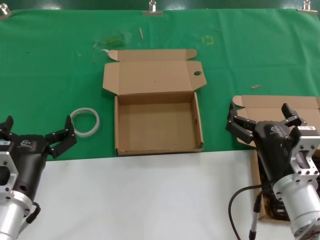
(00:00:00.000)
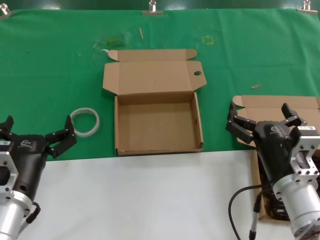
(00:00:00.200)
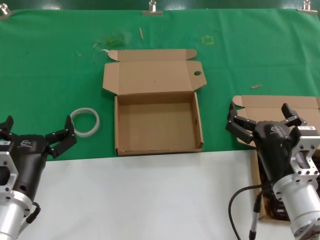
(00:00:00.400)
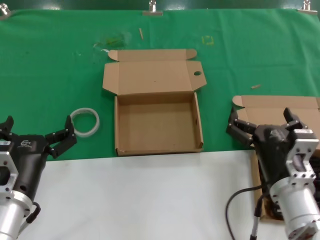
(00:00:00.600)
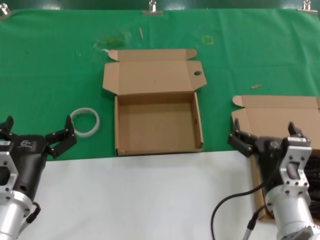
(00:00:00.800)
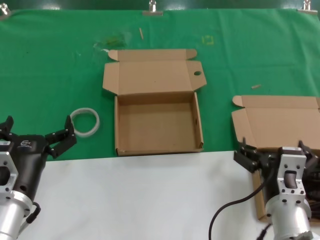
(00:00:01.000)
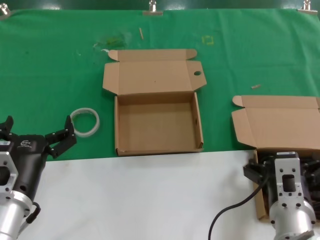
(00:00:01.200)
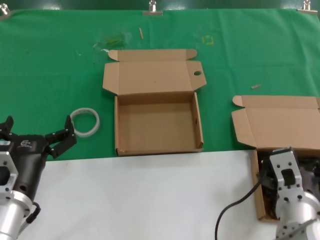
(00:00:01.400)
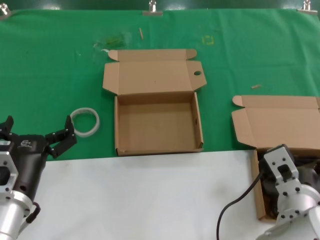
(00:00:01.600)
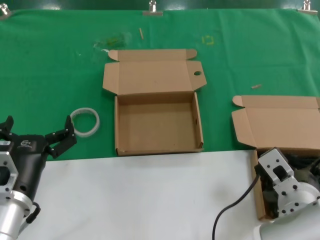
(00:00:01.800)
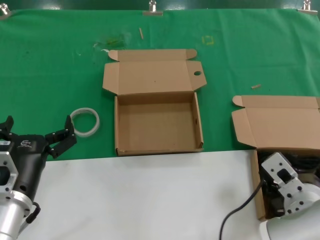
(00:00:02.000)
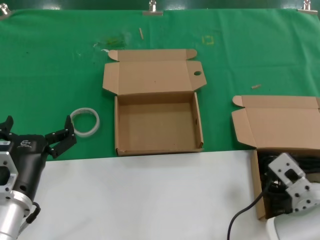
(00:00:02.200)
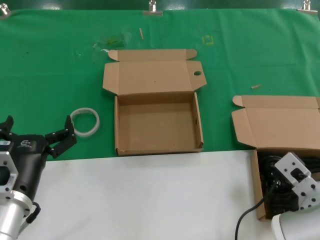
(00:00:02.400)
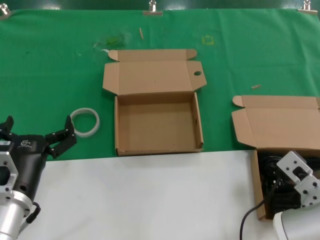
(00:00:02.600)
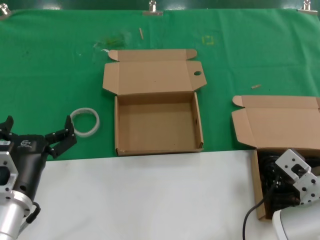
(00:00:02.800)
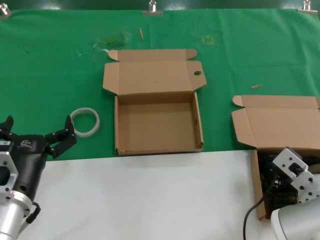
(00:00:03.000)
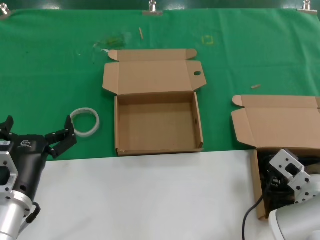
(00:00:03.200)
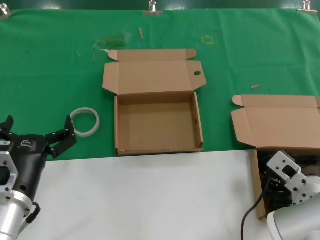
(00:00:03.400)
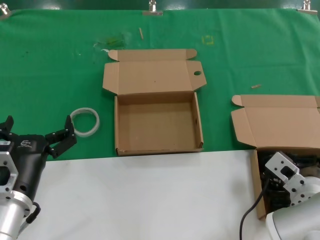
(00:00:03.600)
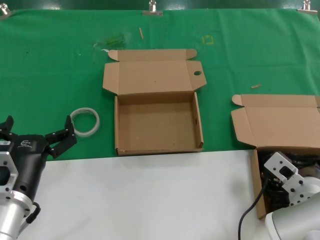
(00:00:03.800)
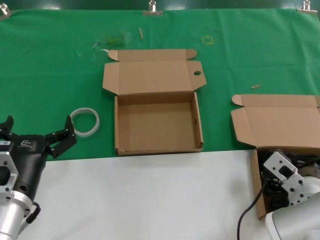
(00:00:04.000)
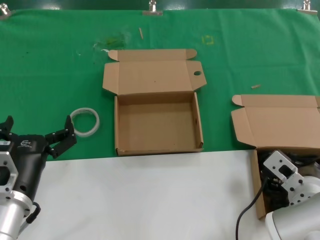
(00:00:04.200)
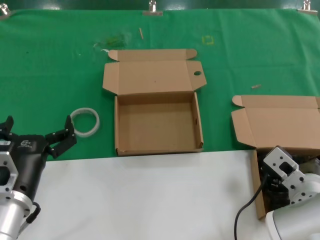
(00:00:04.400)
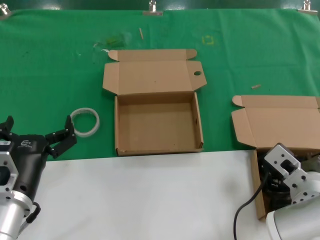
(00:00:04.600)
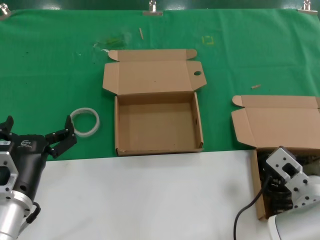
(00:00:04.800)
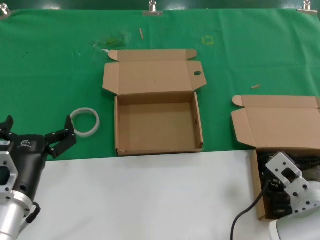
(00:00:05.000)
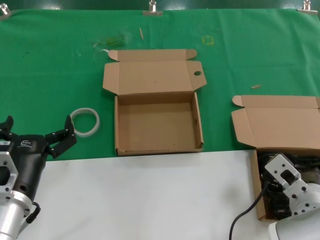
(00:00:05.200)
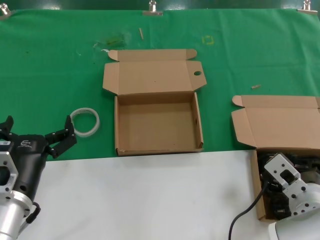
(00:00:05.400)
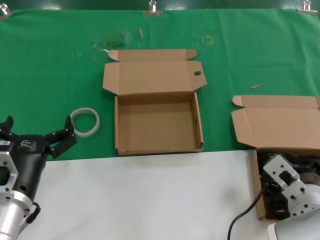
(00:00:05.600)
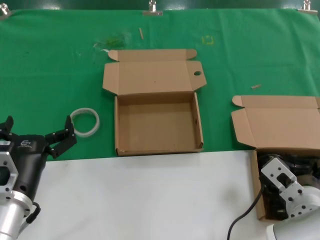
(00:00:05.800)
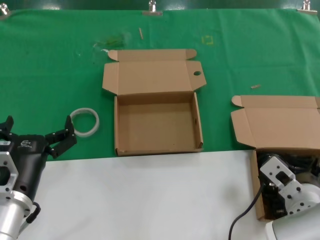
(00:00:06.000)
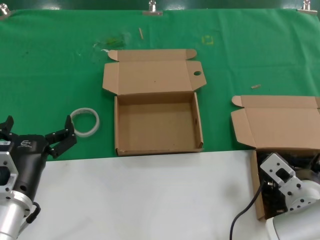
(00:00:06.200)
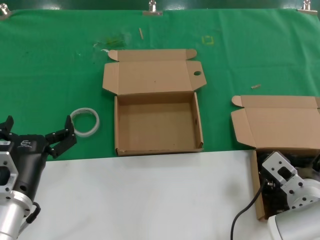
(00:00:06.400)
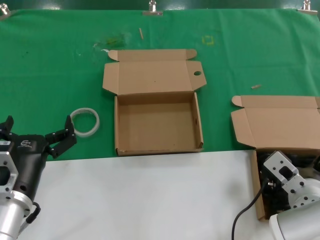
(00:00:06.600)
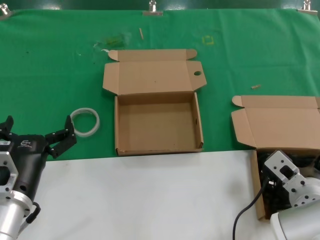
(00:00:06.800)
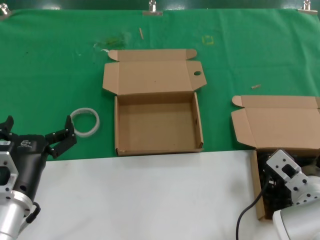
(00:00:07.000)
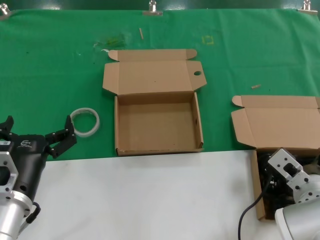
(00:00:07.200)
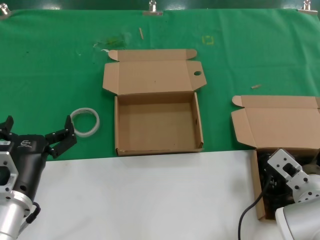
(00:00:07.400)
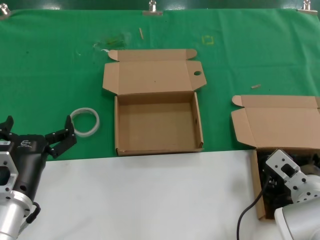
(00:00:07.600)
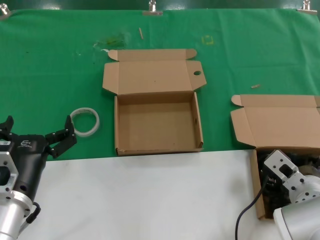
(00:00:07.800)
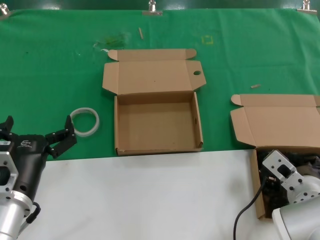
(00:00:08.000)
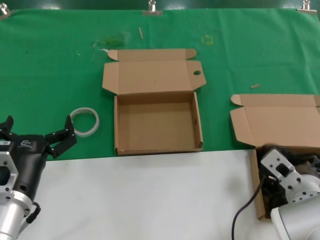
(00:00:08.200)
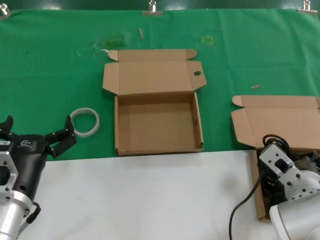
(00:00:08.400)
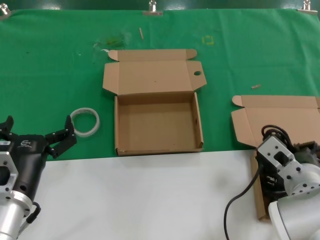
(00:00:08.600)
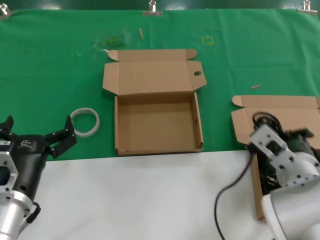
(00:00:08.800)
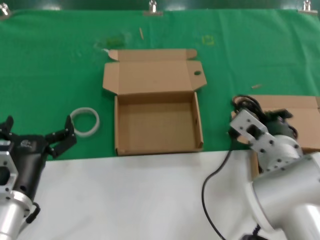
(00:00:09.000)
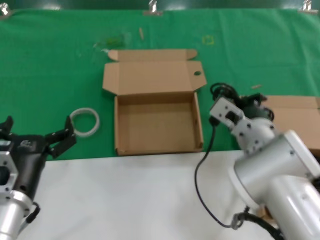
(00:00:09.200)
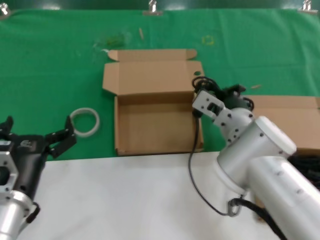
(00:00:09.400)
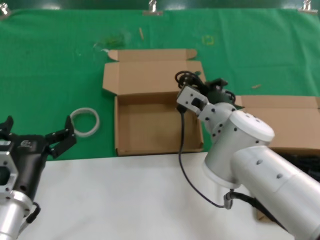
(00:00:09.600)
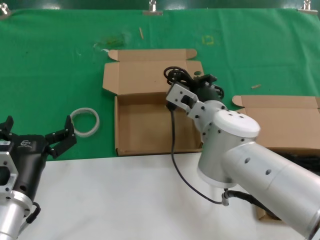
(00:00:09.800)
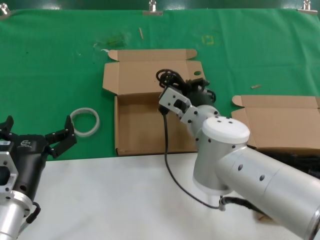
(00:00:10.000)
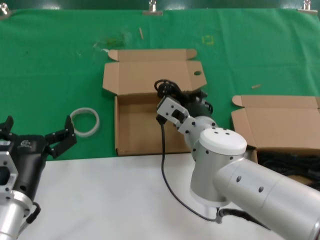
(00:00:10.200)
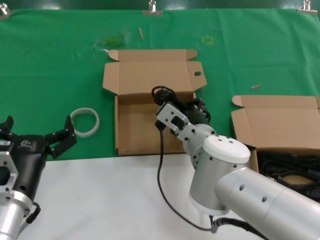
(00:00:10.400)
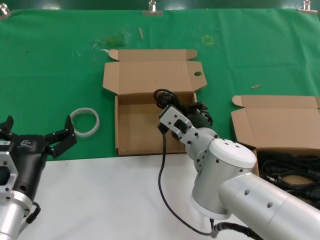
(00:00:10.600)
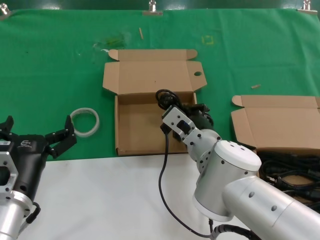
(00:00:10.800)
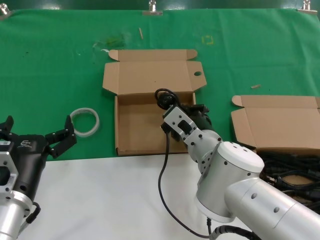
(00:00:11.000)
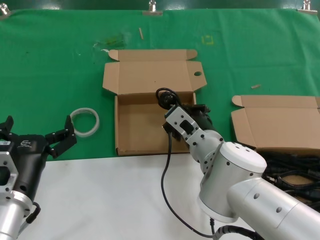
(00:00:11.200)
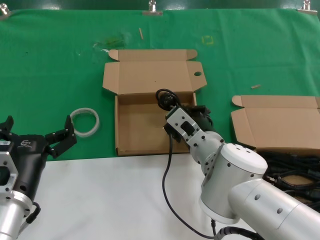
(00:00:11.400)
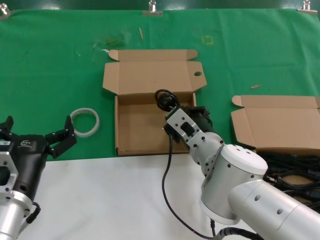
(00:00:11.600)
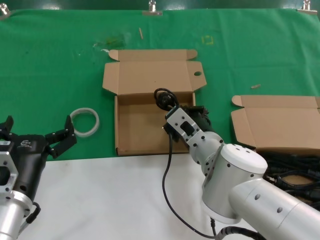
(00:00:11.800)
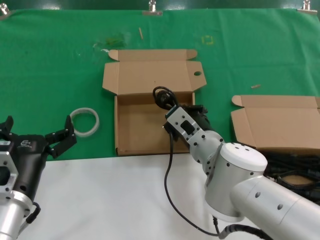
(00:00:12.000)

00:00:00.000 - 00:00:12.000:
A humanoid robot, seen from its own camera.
Task of the whole recording: take the parts from the box containing them and put them into an empty box.
Step, 00:00:00.000 - 00:00:08.000: Grasp the data cable.
00:00:01.600 - 00:00:03.000: The right hand changes place by about 5 cm.
00:00:03.000 - 00:00:07.600: The hands move only a little.
00:00:07.600 - 00:00:09.000: The right hand shifts roughly 10 cm upward and to the left.
00:00:09.000 - 00:00:10.400: The right hand shifts some 15 cm to the left and forward.
00:00:10.400 - 00:00:12.000: There are only small adjustments of the hands.

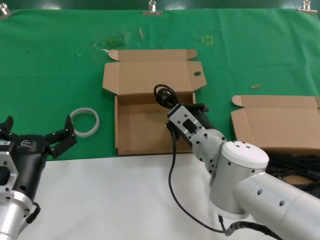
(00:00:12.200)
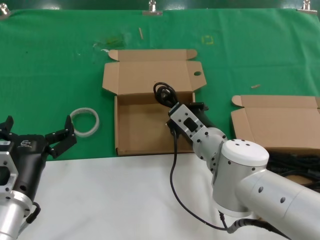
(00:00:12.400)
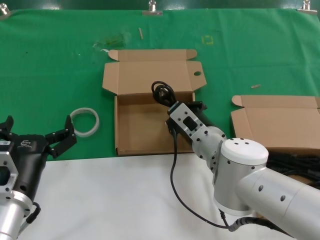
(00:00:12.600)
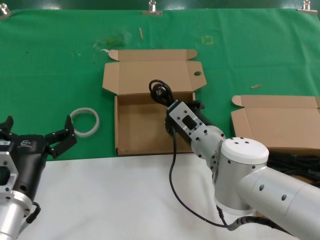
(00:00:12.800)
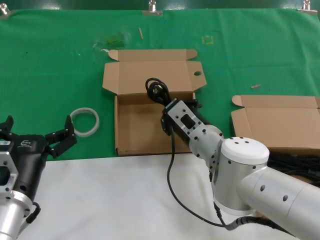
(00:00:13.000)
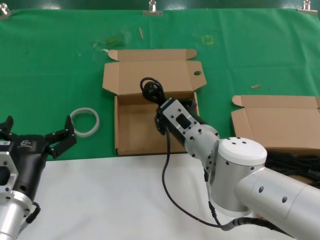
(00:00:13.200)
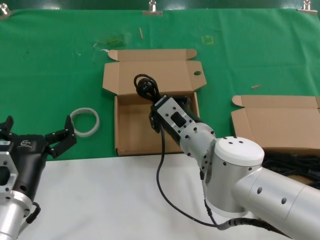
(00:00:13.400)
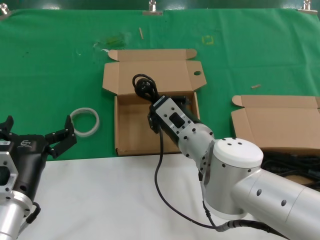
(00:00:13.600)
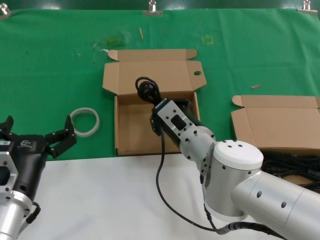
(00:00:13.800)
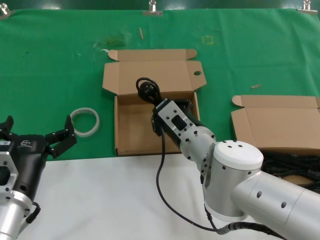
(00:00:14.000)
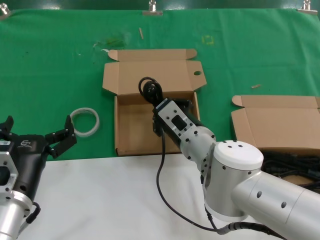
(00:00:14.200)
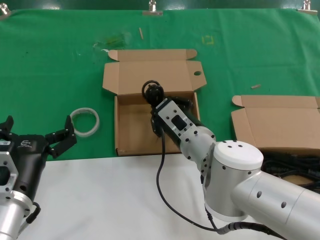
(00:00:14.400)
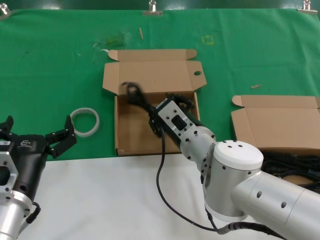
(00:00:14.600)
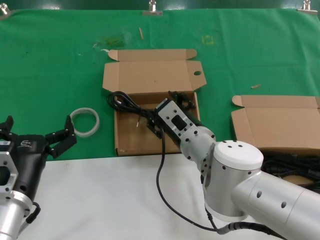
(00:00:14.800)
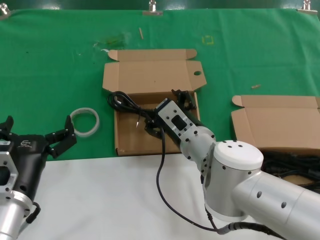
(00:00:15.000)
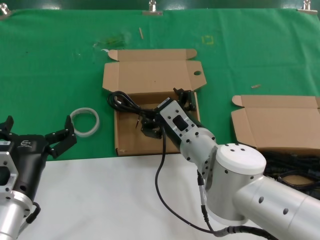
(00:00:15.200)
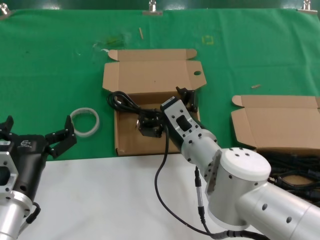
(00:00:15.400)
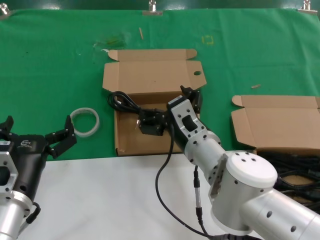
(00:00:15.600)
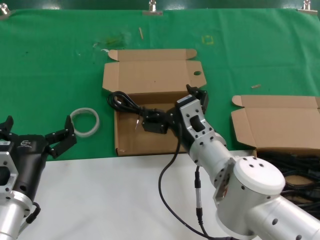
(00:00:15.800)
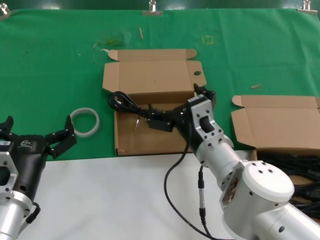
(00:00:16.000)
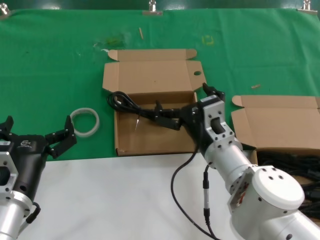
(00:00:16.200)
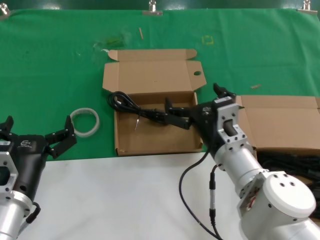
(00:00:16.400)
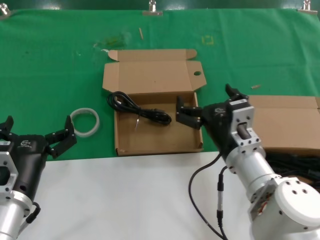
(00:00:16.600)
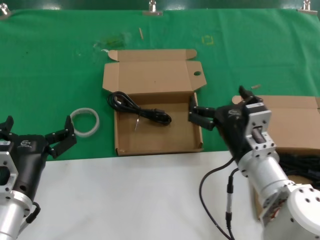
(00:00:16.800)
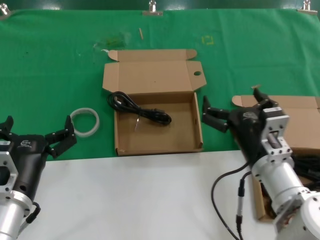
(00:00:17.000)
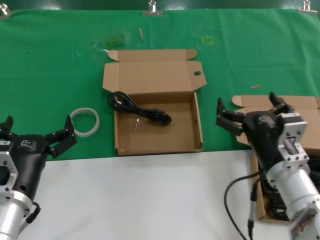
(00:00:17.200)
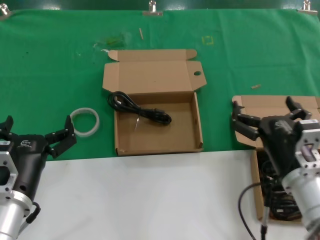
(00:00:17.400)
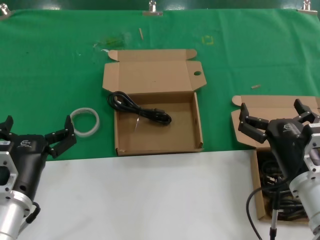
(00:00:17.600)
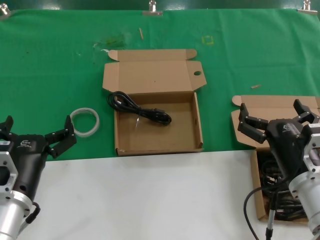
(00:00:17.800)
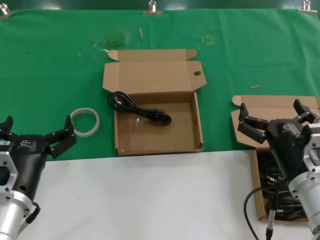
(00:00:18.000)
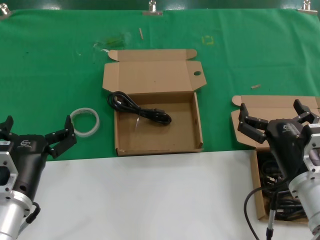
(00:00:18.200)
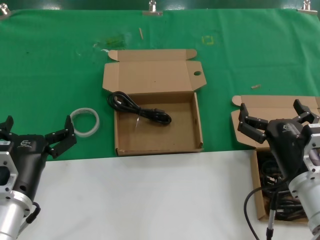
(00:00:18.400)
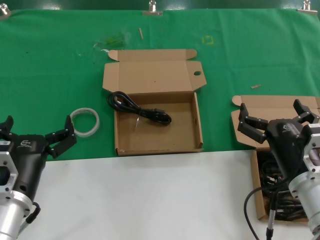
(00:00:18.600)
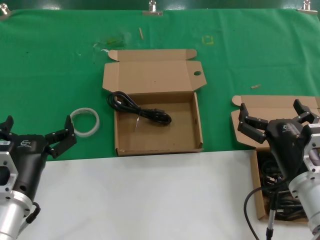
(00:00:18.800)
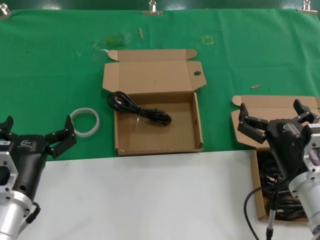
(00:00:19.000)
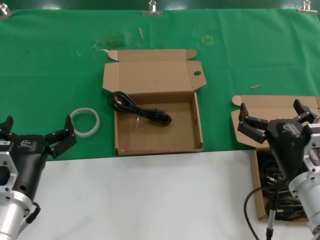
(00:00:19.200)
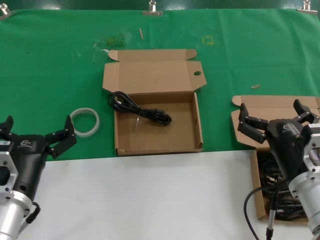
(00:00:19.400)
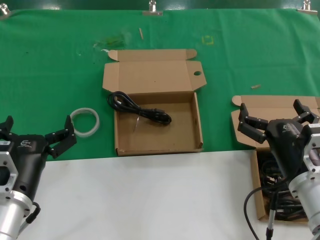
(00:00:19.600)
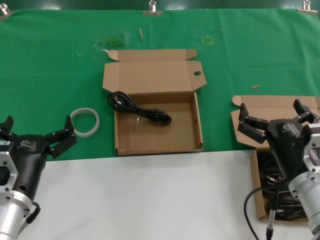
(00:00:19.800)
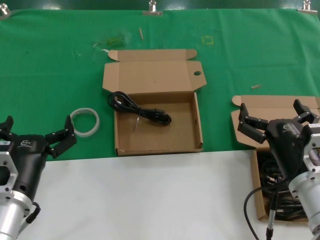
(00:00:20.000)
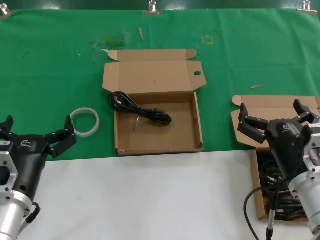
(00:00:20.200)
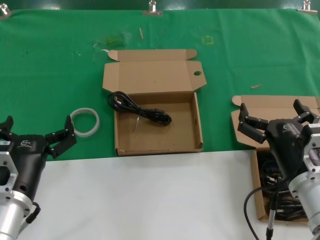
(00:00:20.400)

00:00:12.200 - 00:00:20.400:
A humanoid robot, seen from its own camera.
Task of the whole recording: take the parts from the box containing them and put them into an empty box.
Step, 00:00:12.200 - 00:00:14.600: Place the data cable in the another box.
00:00:12.200 - 00:00:15.400: There are only small adjustments of the hands.
00:00:15.400 - 00:00:17.200: The right hand shifts about 15 cm to the right and backward.
00:00:17.200 - 00:00:18.800: The hands make only small movements.
00:00:18.800 - 00:00:20.400: Both hands stay put.
